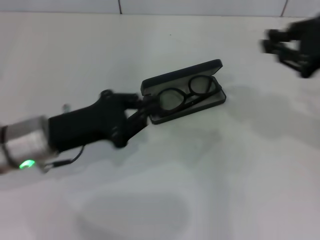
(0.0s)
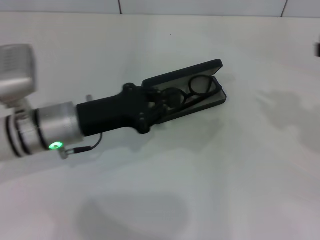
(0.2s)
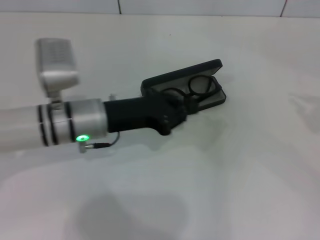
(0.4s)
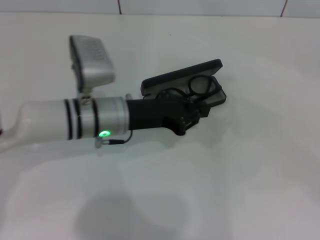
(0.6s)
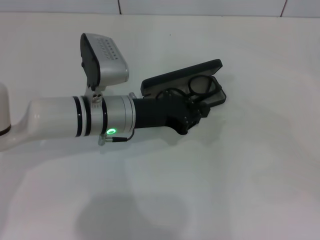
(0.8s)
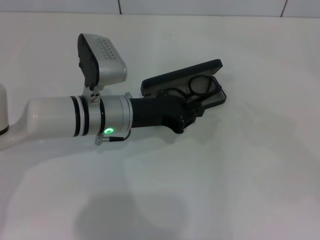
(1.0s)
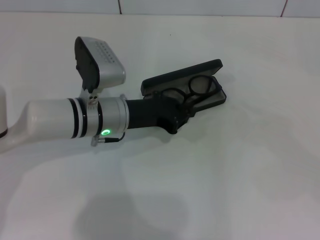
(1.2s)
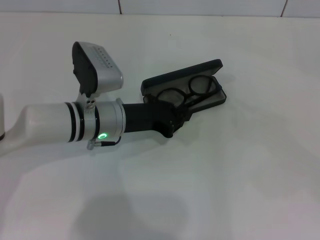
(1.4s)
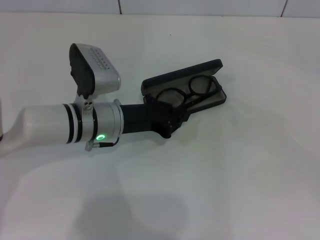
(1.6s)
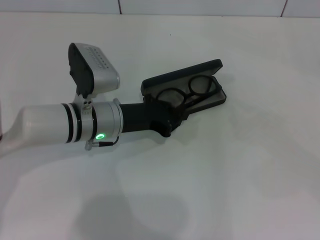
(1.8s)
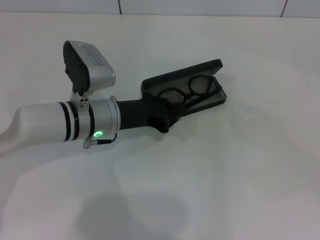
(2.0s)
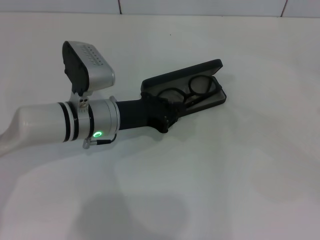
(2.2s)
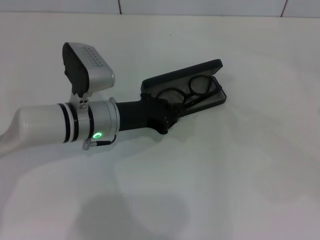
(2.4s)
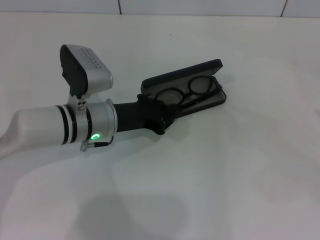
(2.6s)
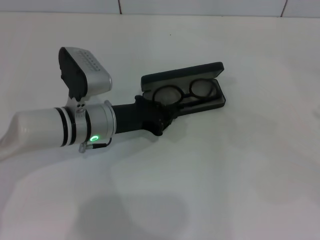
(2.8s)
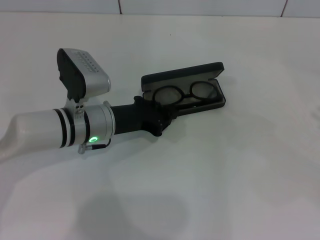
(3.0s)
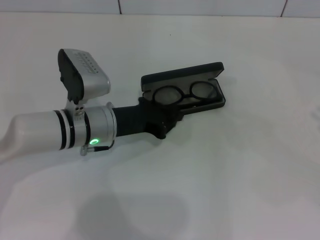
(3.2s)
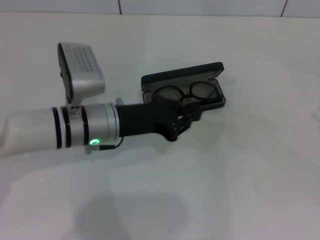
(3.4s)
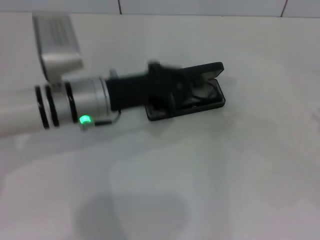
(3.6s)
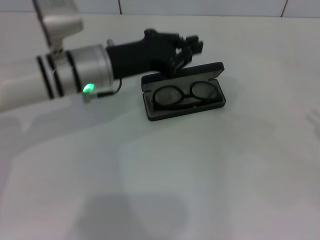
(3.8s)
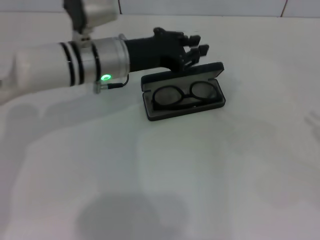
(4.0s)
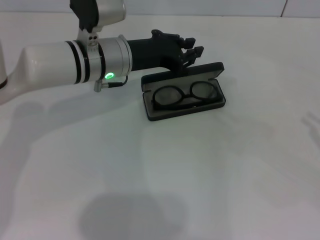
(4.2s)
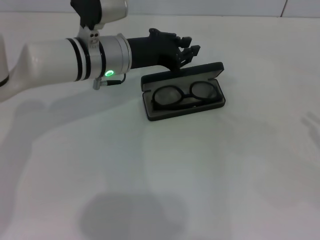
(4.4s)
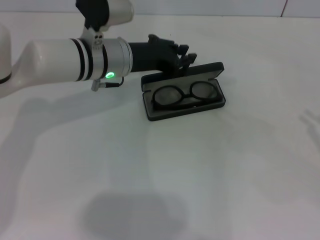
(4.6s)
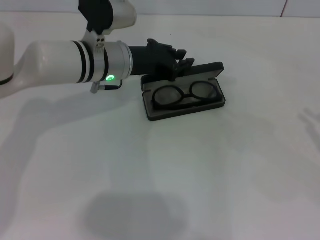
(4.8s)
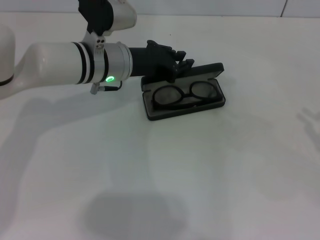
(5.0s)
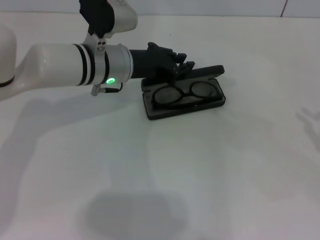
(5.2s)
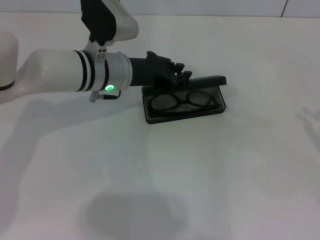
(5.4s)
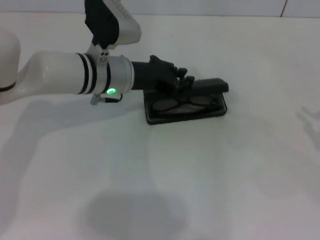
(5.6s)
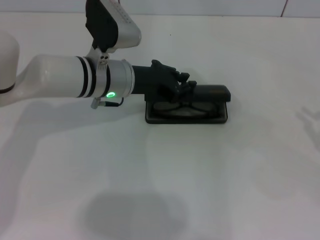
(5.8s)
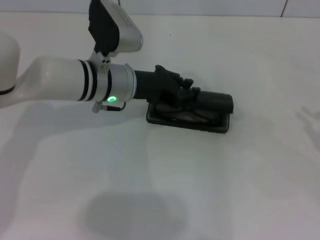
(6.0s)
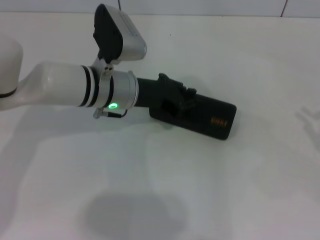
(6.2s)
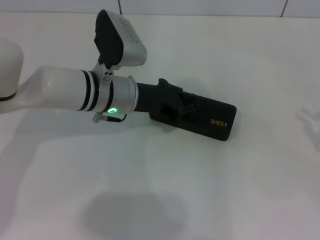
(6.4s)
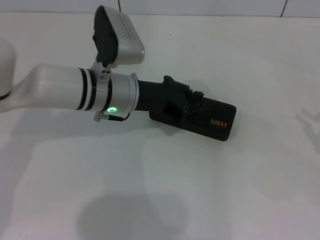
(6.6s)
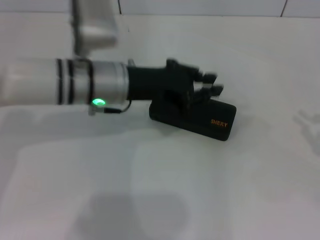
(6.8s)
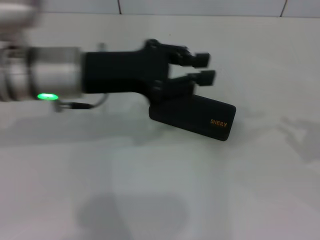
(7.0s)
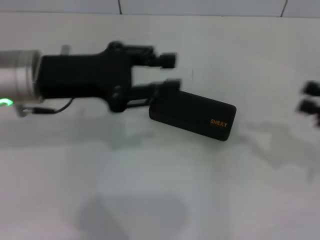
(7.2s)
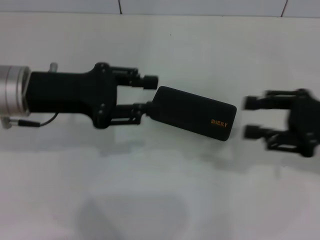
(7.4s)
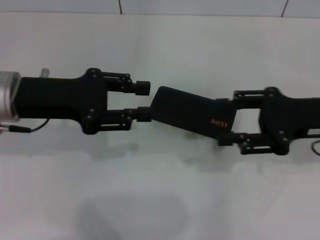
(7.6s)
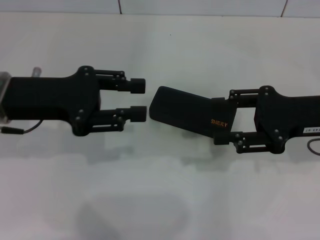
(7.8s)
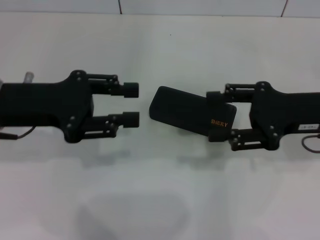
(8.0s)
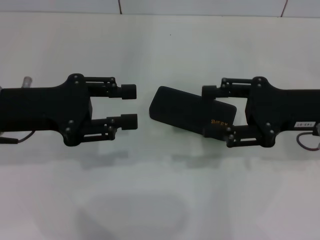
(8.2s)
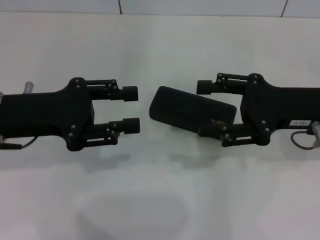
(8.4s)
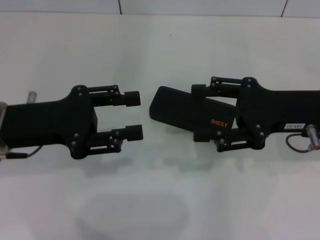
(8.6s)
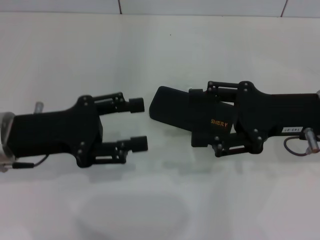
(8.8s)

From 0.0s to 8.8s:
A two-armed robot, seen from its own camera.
Step, from 0.0s to 6.6s: Close the glasses case with your left hand.
From 0.0s to 1.4s: The left gripper is displaced to the right and forward by approximately 10 cm. Meanwhile the right gripper is displaced to the right and backward by about 20 cm.
From 1.4s to 3.0s: The grippers make only small movements.
From 3.0s to 4.4s: The left gripper travels upward and forward by roughly 10 cm.
From 4.4s to 5.8s: The grippers move only a little.
From 5.8s to 7.4s: The left gripper travels to the left, backward and upward by roughly 15 cm; the right gripper goes approximately 15 cm to the left and forward.
From 7.4s to 8.8s: The left gripper ends up some 5 cm from where it was, while the right gripper heads to the left, covering about 5 cm, and opens.

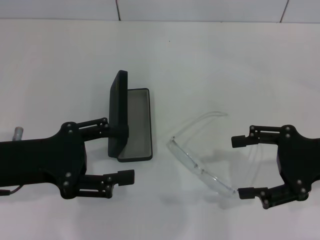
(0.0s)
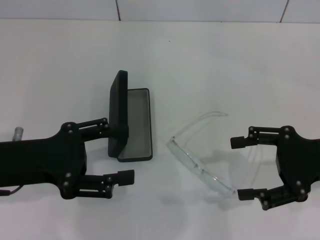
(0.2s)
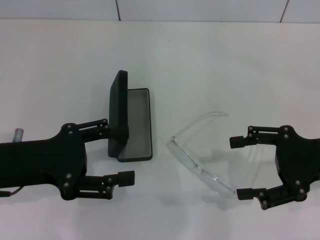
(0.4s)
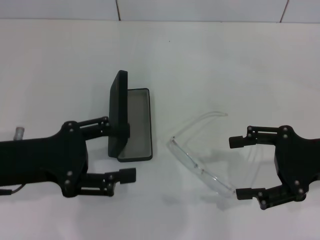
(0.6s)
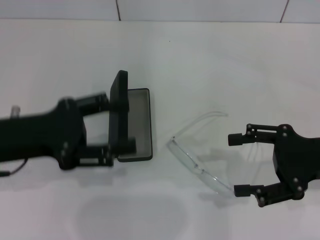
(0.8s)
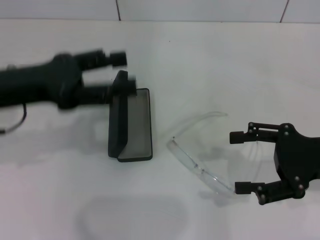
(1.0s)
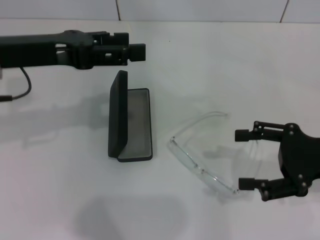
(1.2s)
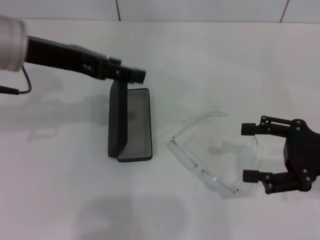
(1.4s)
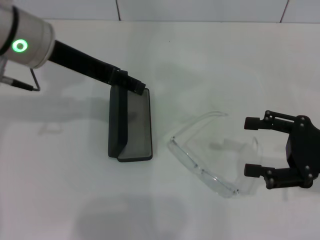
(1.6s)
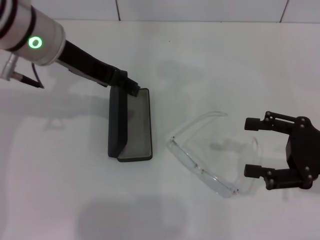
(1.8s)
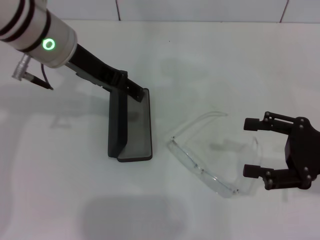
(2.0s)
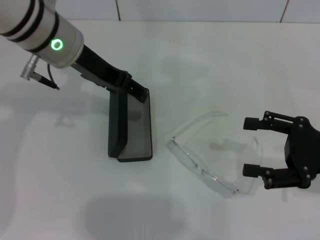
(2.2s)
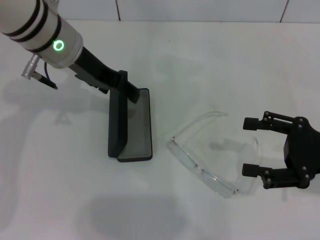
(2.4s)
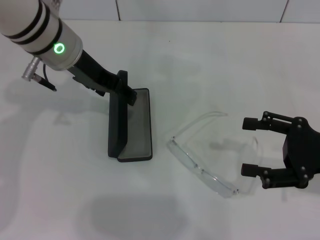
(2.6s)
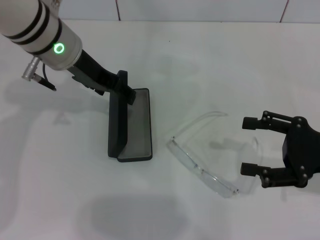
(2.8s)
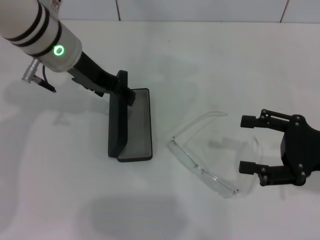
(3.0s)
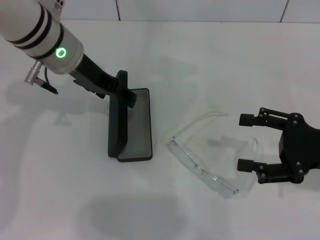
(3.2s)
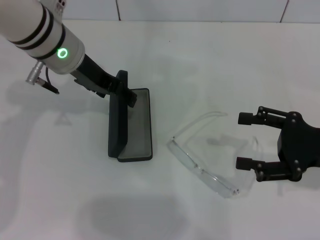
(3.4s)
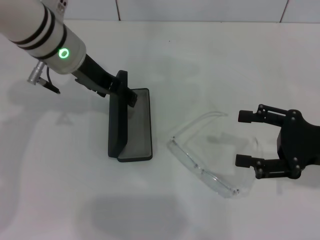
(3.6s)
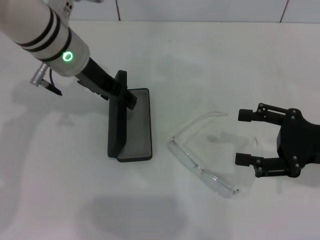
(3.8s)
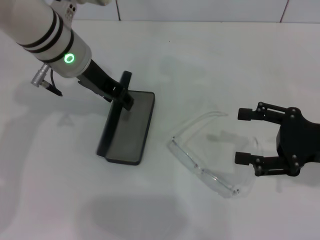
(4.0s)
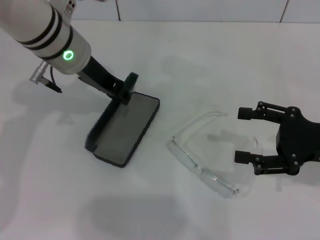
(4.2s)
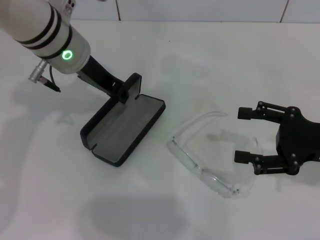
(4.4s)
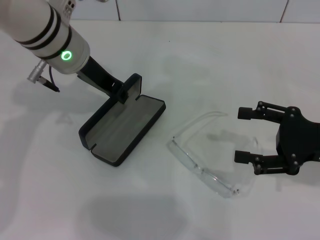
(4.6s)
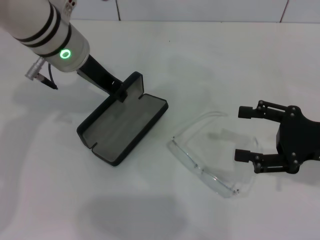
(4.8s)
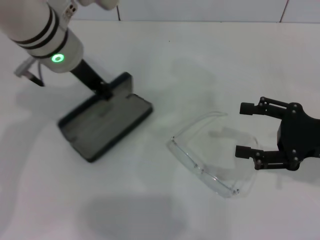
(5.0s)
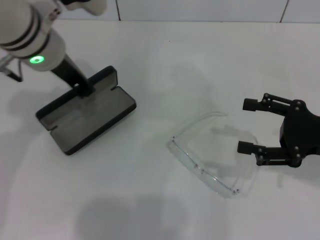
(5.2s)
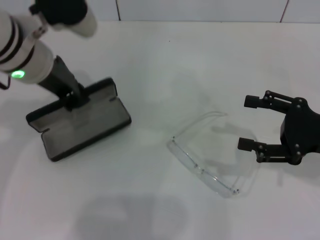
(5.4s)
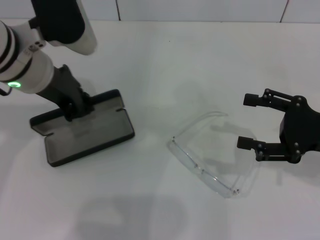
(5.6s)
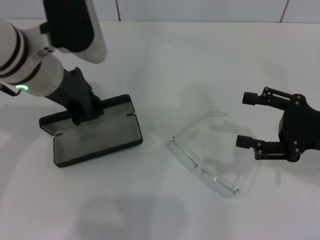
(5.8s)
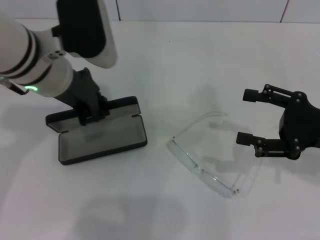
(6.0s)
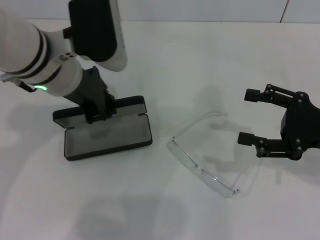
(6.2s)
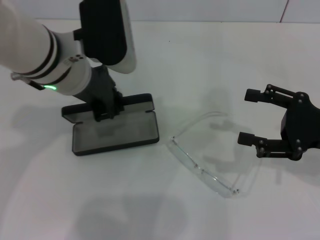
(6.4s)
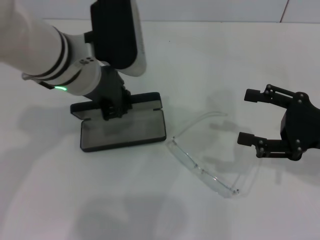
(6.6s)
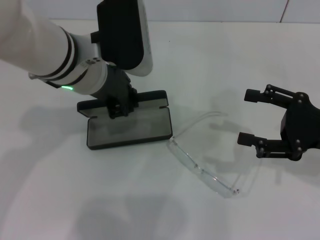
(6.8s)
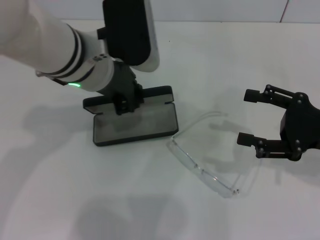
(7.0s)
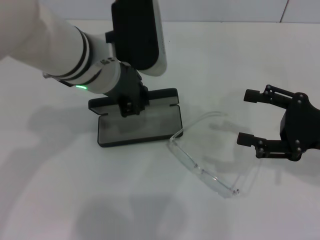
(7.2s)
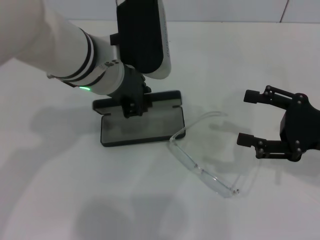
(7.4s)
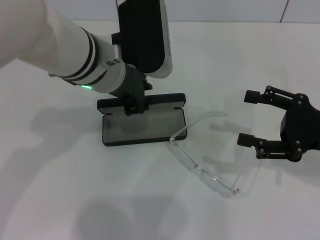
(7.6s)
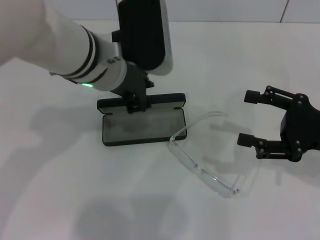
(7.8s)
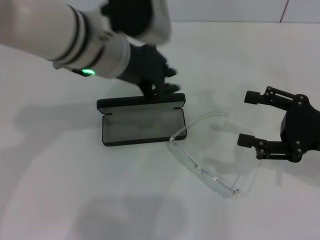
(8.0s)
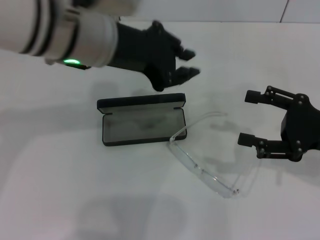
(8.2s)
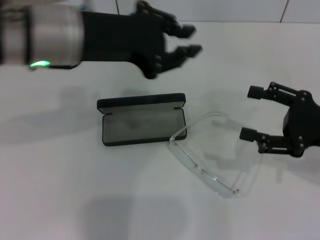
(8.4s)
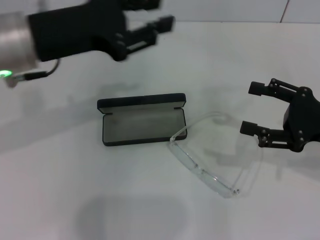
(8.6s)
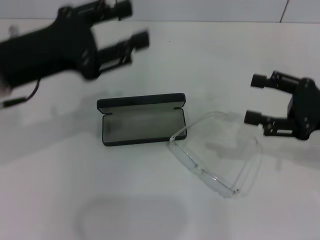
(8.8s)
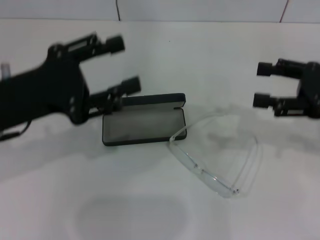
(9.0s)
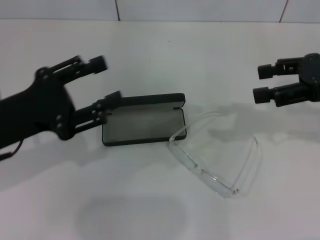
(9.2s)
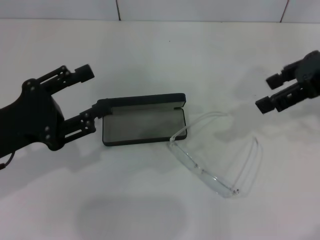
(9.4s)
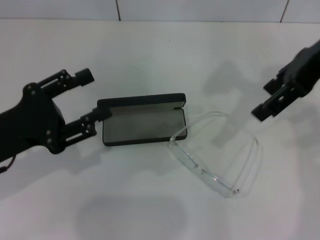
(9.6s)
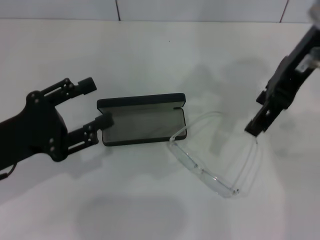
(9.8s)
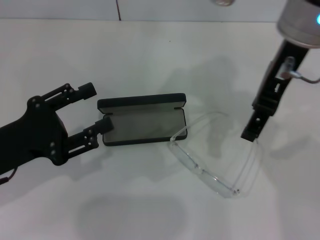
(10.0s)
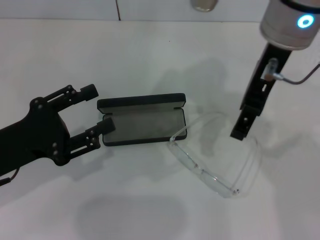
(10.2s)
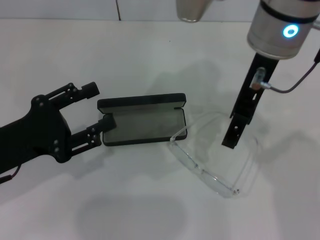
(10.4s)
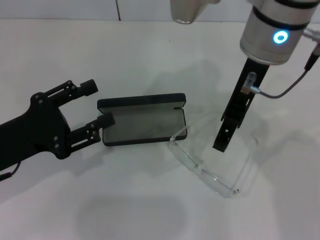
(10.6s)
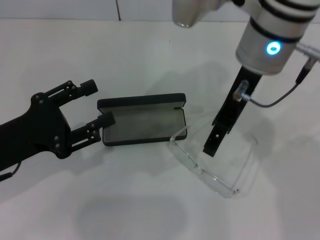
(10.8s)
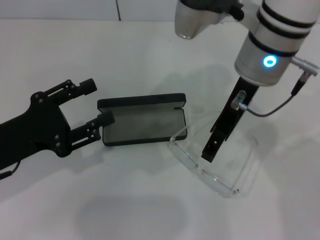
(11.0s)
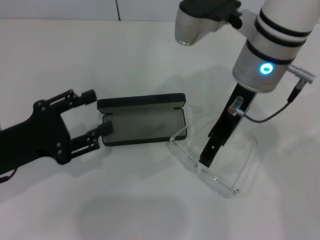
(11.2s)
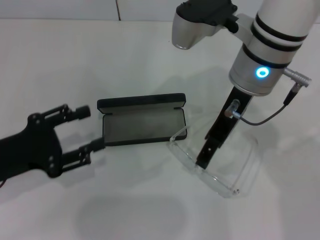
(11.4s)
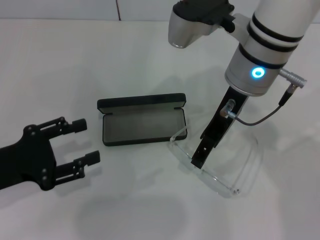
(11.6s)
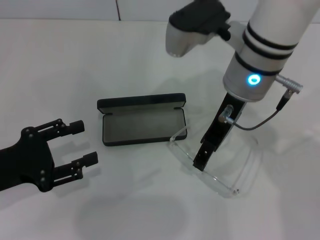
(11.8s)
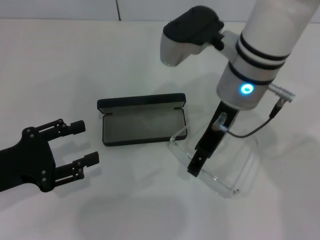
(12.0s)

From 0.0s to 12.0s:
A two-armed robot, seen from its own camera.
Step, from 0.0s to 4.8s: Grab the glasses case with your left hand.
Step, from 5.0s to 7.4s: Place the glasses case in the center of the table with your left hand.
From 0.0s to 1.6s: The left gripper shifts approximately 20 cm forward, upward and to the right.
From 1.6s to 3.0s: The left gripper ends up about 5 cm from where it was.
From 3.0s to 4.4s: The left gripper closes its fingers.
From 4.4s to 6.0s: The left gripper moves backward, some 5 cm.
From 6.0s to 7.6s: The left gripper travels to the right by approximately 5 cm.
From 7.6s to 9.0s: The right gripper travels upward by about 5 cm. Meanwhile the left gripper is displaced to the left and backward by about 15 cm, and opens up.
From 9.0s to 10.4s: The left gripper heads downward, covering approximately 5 cm. Meanwhile the right gripper is displaced to the left and upward by roughly 25 cm.
From 10.4s to 12.0s: The right gripper moves downward, approximately 10 cm.

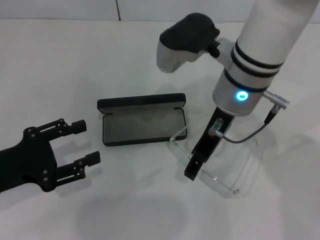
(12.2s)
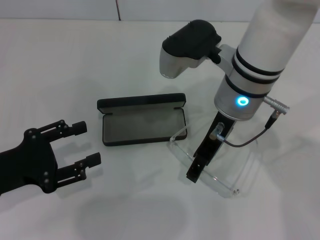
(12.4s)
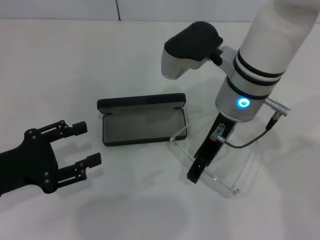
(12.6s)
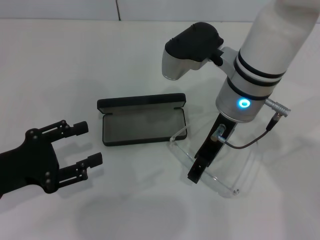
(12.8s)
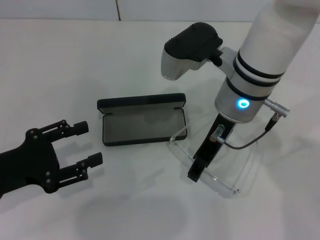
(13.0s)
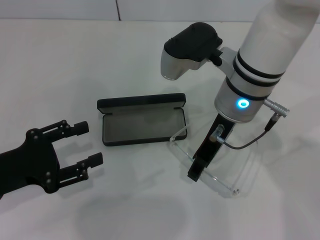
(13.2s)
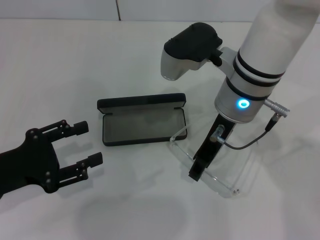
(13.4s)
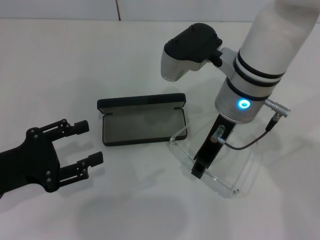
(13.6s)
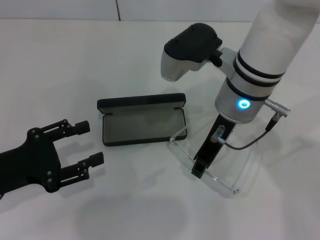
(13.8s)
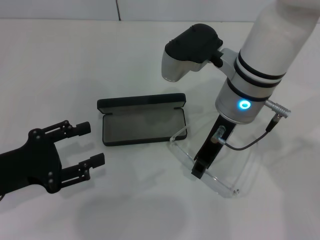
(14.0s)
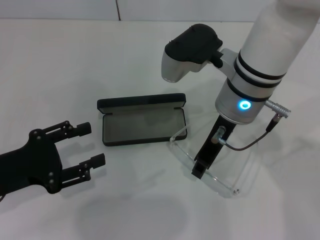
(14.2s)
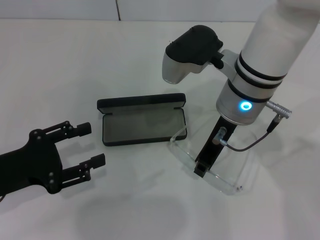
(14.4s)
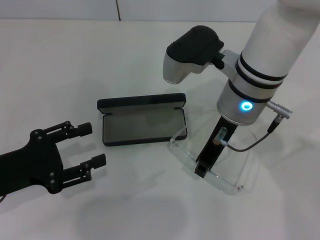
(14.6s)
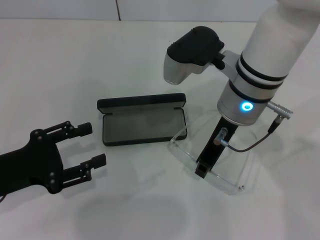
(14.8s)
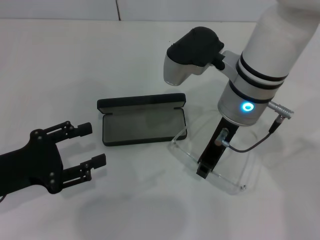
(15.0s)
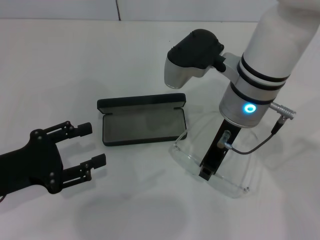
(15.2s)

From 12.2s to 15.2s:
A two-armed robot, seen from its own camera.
From 12.2s to 13.8s: The right gripper closes up.
From 13.8s to 15.2s: Neither gripper changes place.
